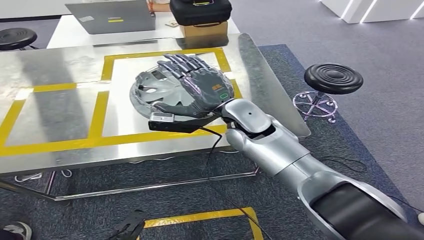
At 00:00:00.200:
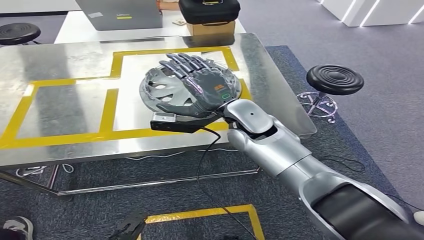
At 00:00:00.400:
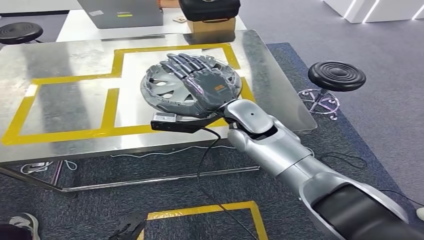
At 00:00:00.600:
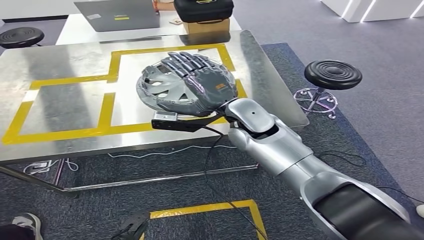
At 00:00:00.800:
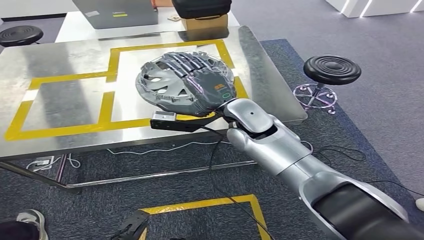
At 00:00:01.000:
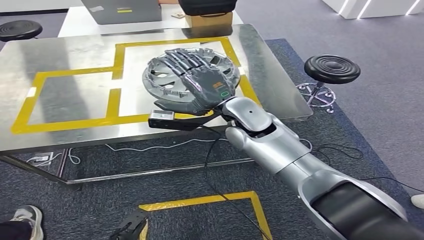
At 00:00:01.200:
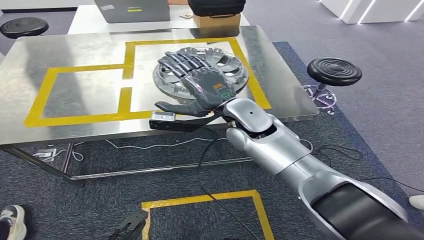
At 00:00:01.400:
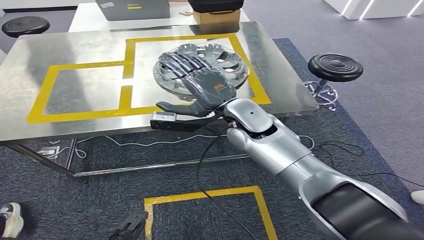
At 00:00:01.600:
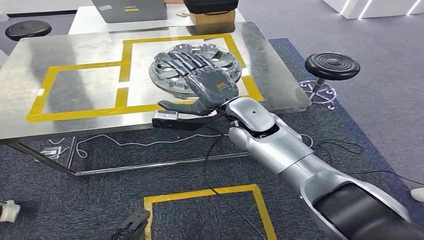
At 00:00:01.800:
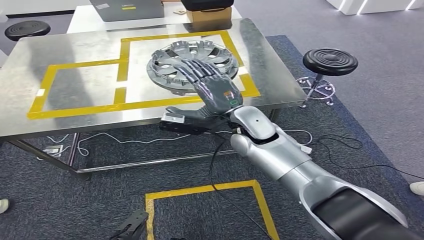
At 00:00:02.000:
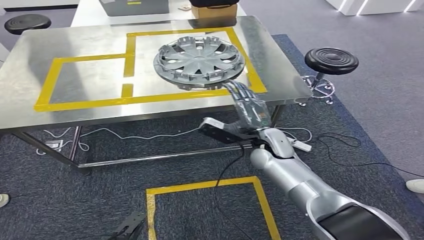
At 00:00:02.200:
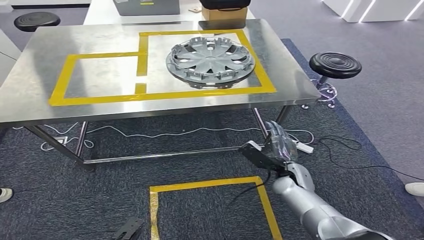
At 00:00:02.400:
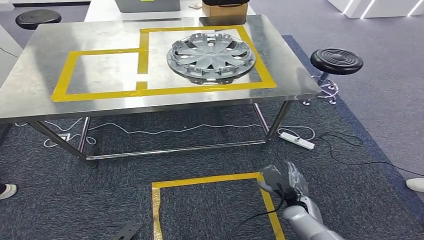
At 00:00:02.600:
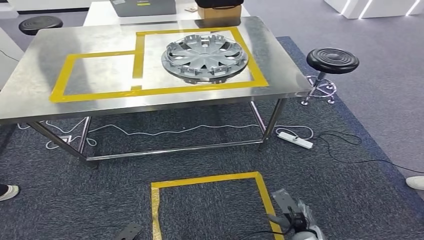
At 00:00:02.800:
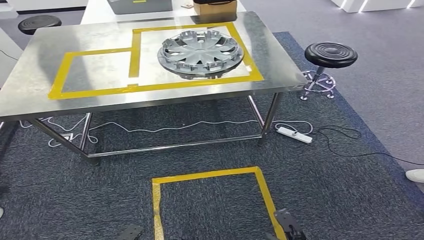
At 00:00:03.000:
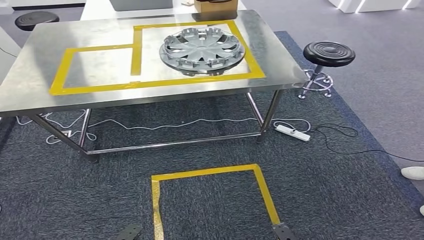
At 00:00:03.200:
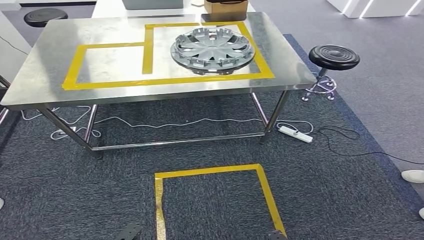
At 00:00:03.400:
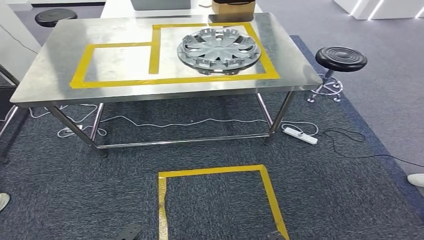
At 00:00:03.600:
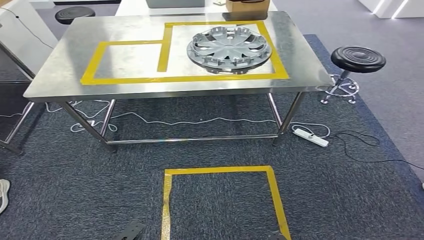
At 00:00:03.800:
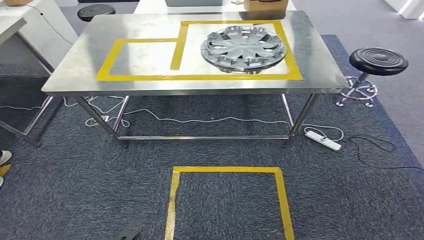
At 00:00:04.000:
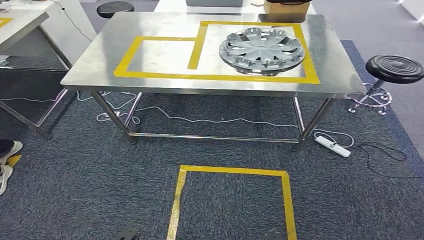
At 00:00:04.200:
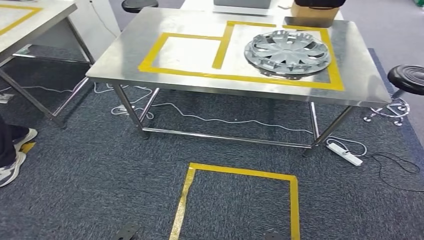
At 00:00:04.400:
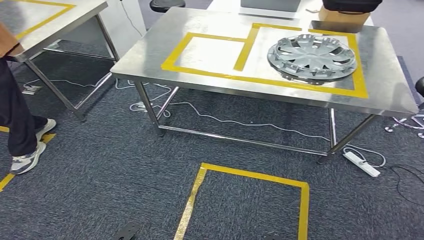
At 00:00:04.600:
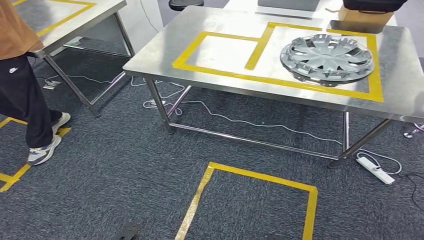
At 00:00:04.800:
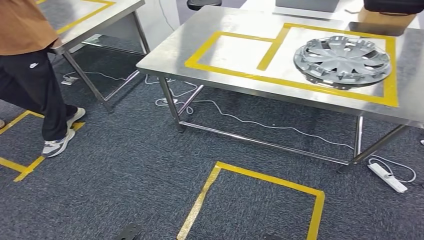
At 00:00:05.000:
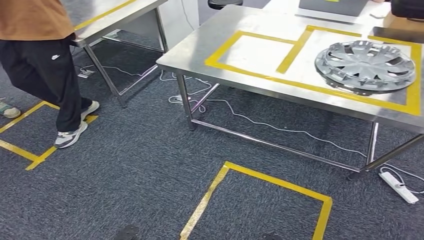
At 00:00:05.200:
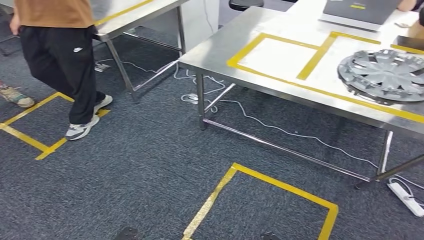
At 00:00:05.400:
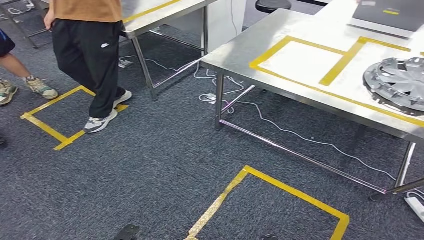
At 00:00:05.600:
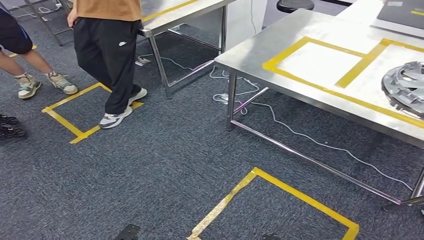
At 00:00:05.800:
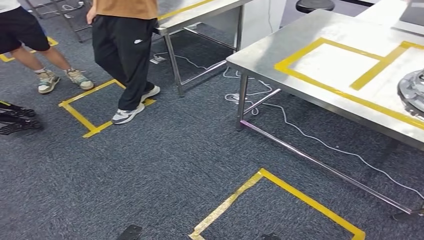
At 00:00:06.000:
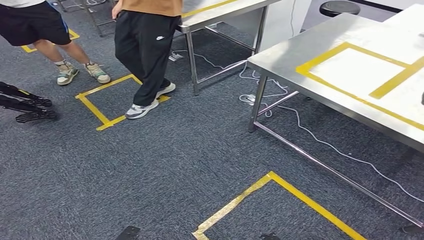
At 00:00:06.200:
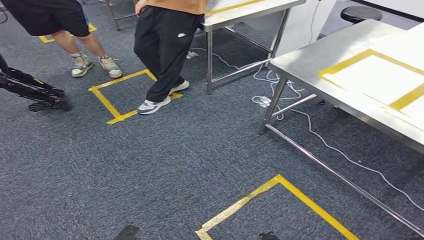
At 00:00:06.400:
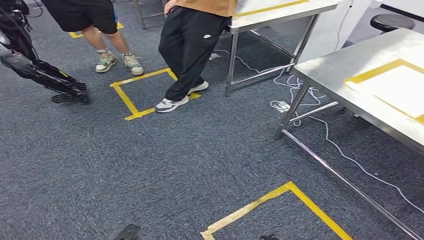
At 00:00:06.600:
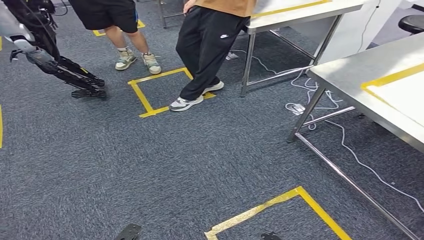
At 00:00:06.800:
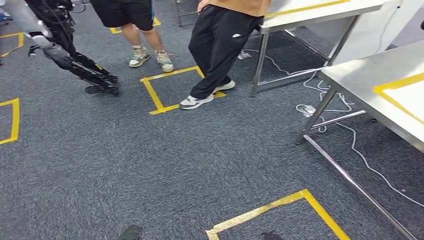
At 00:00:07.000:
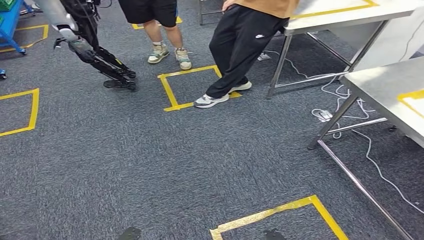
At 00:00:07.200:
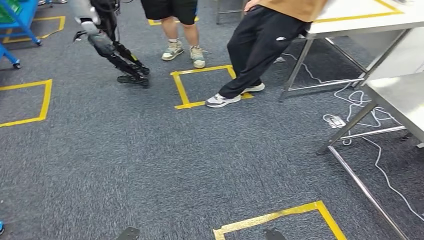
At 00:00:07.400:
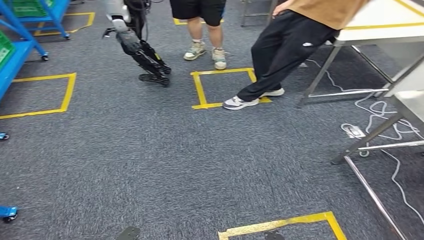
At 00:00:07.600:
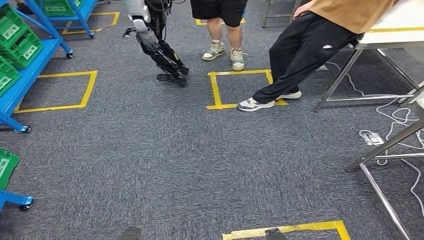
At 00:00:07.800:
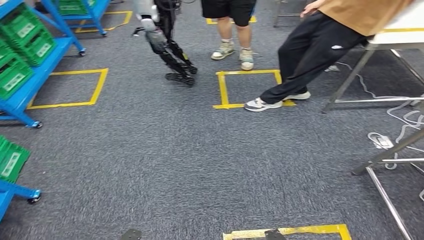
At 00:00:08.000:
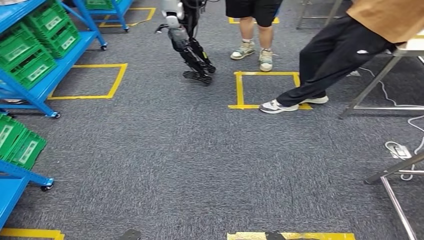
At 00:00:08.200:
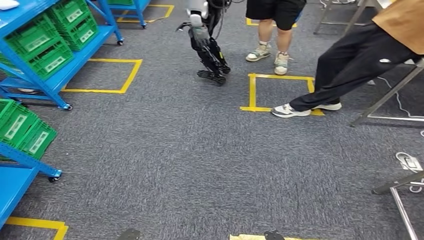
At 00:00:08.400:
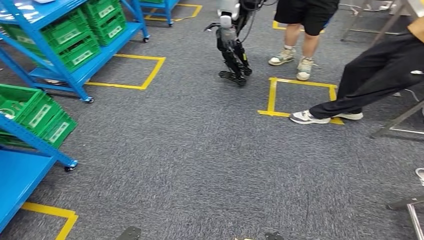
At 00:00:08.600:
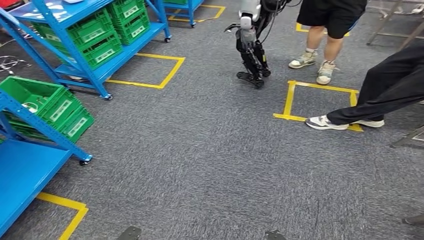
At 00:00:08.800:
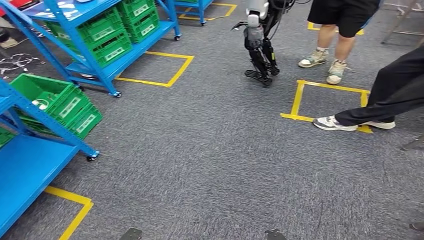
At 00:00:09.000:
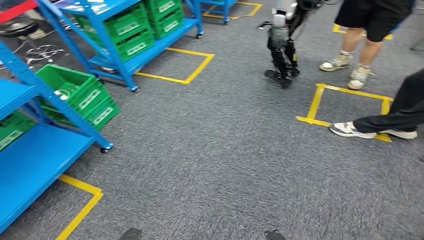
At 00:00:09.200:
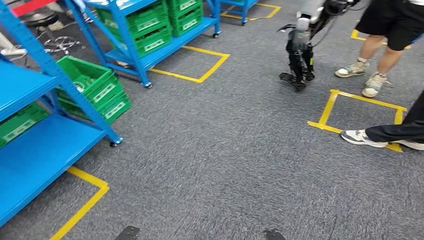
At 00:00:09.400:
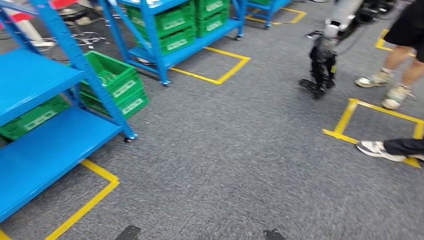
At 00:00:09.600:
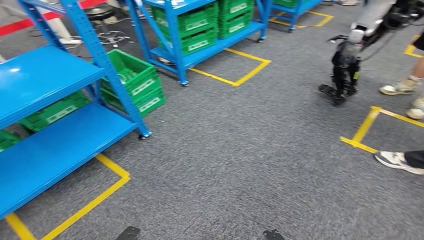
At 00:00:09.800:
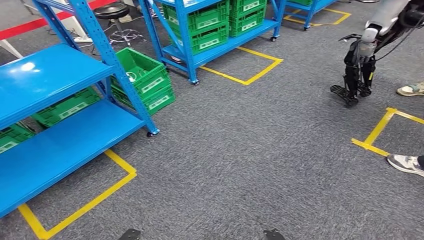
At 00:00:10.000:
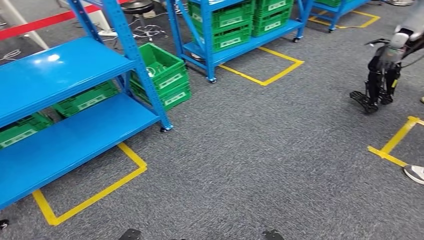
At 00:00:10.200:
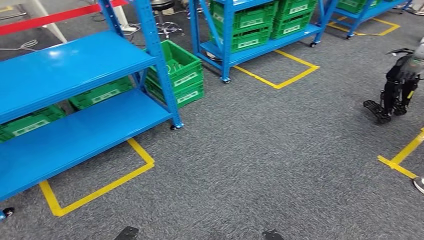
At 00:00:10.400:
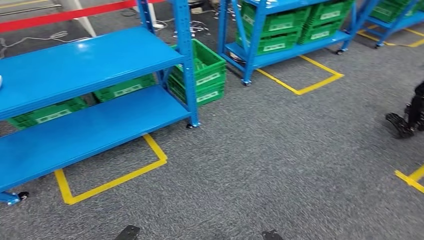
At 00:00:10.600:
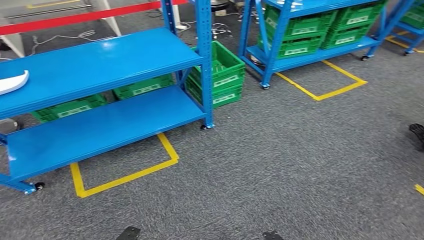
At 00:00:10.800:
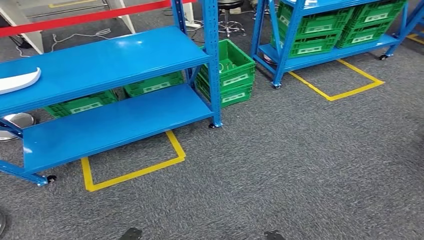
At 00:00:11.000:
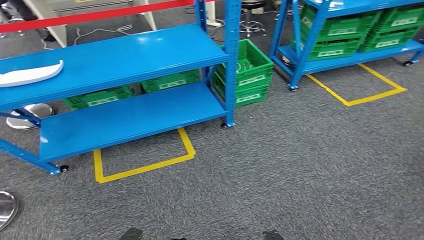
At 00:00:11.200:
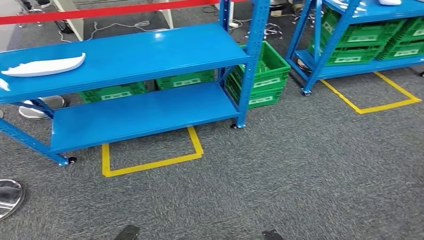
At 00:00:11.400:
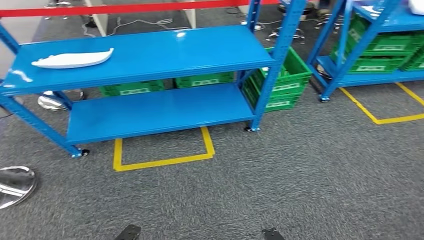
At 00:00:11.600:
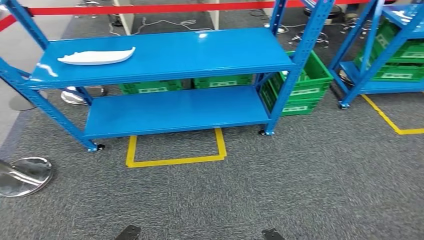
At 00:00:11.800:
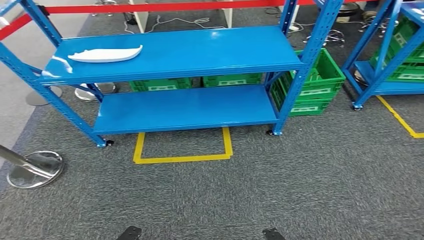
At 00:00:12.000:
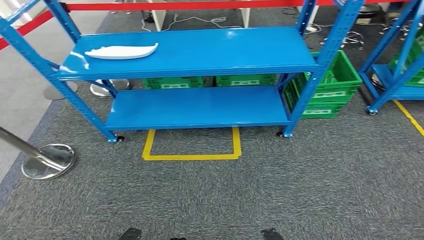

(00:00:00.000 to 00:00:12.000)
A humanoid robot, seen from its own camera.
Step, 00:00:00.800 - 00:00:12.000: Move to the initial position of the workbench.
